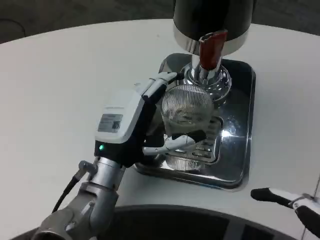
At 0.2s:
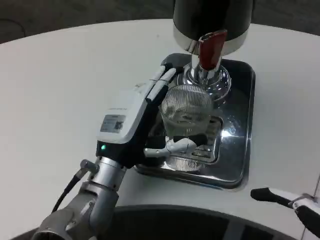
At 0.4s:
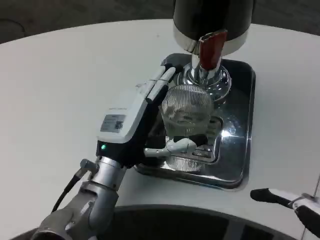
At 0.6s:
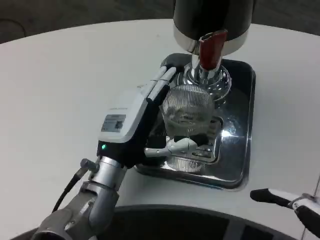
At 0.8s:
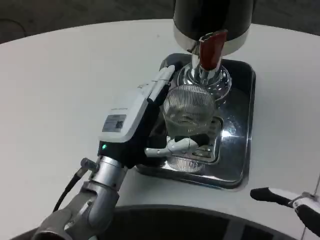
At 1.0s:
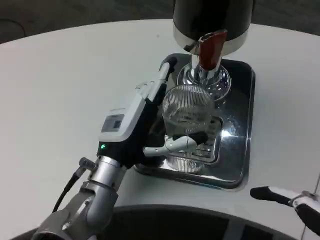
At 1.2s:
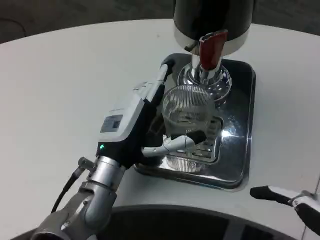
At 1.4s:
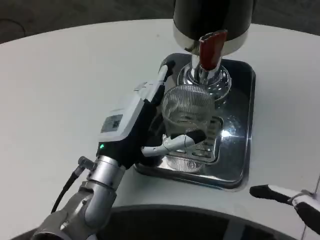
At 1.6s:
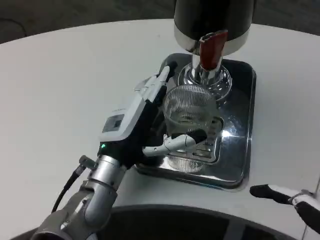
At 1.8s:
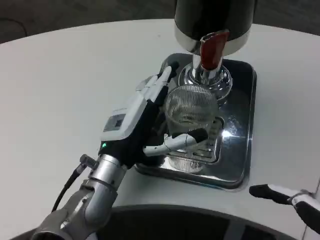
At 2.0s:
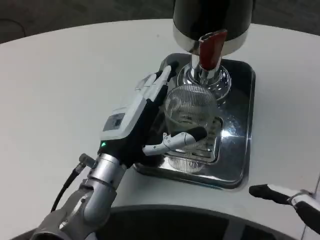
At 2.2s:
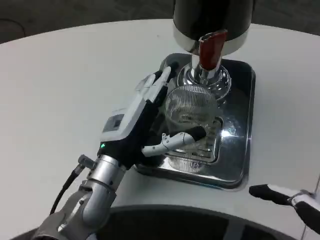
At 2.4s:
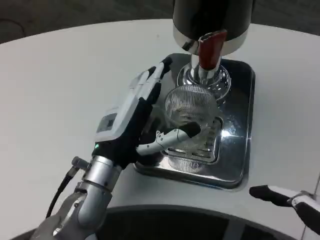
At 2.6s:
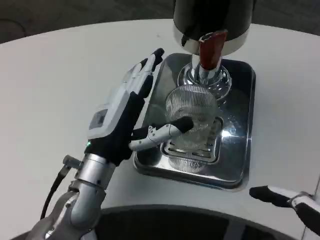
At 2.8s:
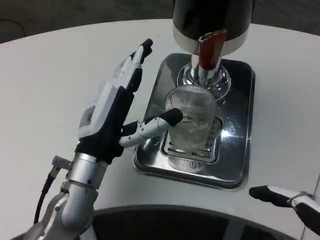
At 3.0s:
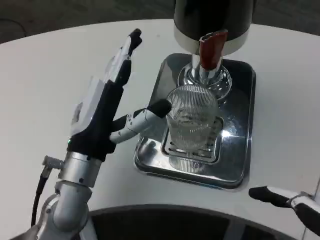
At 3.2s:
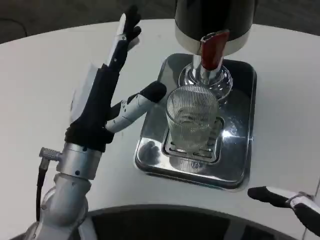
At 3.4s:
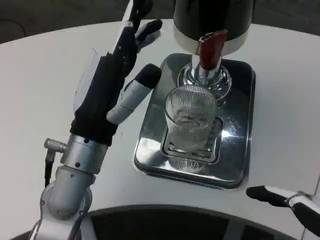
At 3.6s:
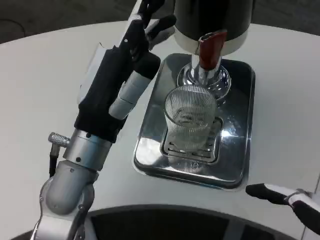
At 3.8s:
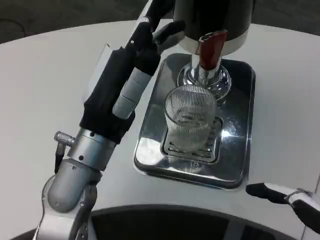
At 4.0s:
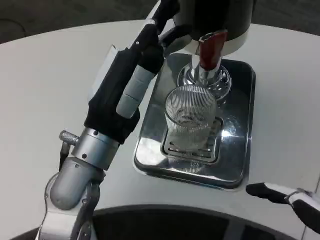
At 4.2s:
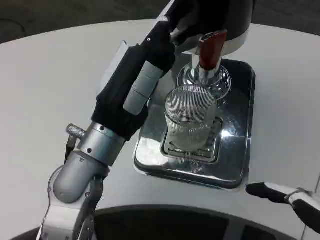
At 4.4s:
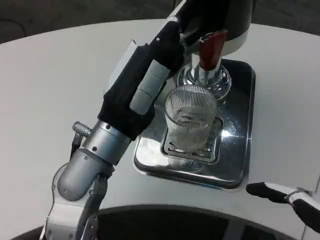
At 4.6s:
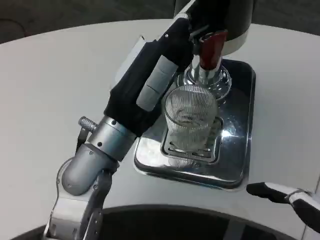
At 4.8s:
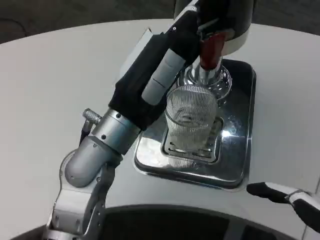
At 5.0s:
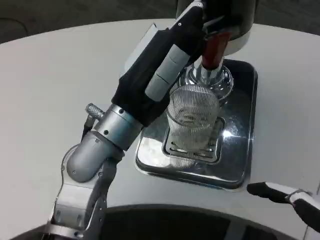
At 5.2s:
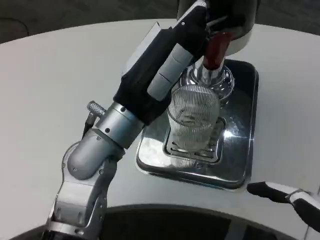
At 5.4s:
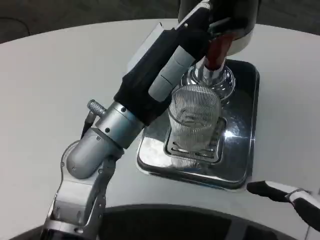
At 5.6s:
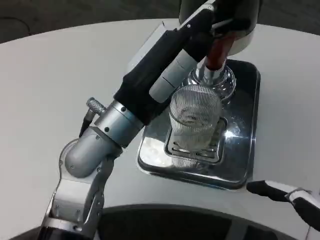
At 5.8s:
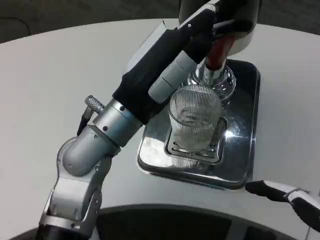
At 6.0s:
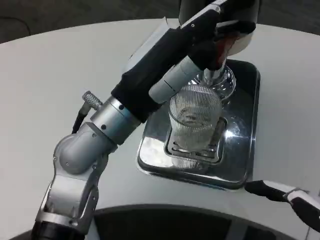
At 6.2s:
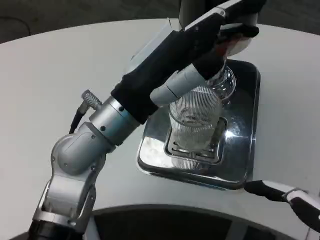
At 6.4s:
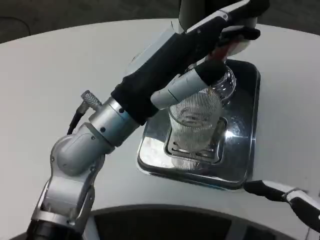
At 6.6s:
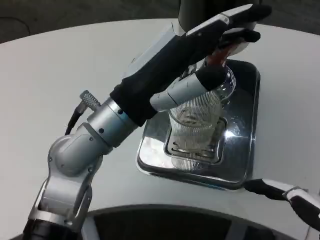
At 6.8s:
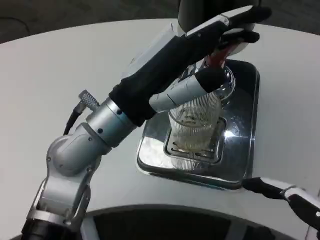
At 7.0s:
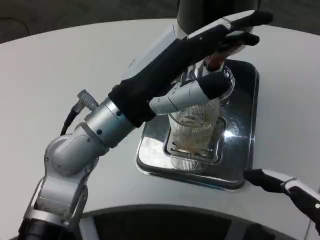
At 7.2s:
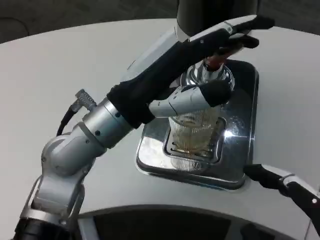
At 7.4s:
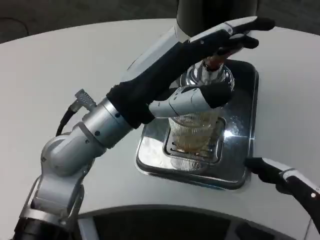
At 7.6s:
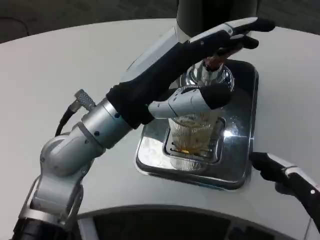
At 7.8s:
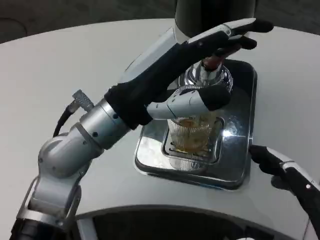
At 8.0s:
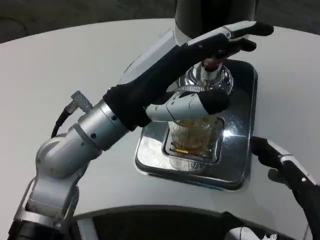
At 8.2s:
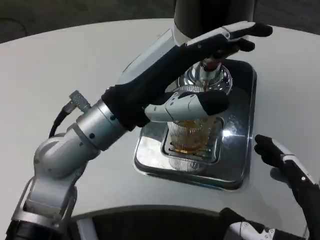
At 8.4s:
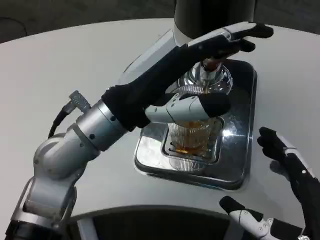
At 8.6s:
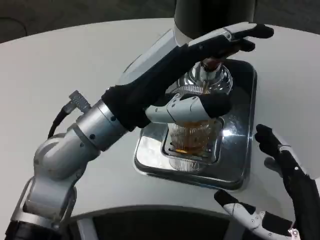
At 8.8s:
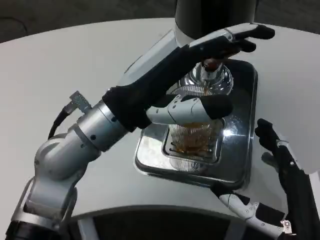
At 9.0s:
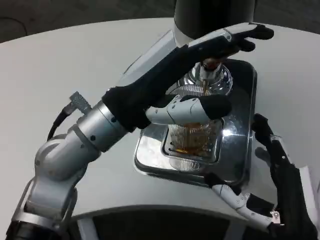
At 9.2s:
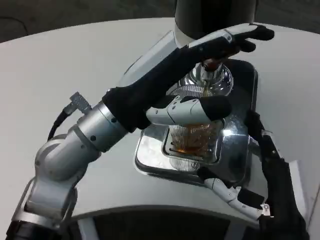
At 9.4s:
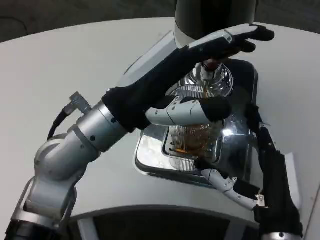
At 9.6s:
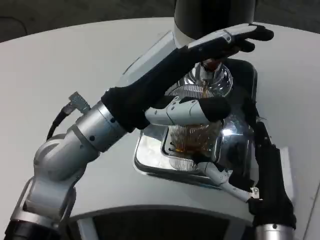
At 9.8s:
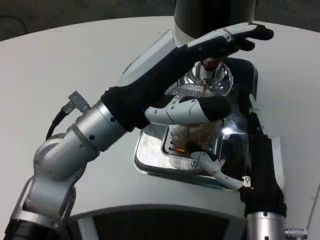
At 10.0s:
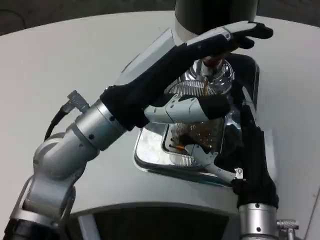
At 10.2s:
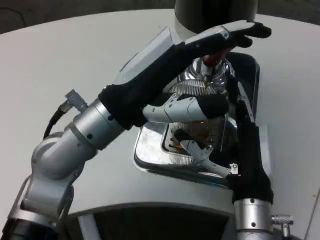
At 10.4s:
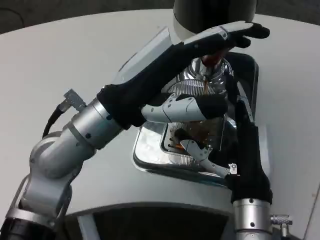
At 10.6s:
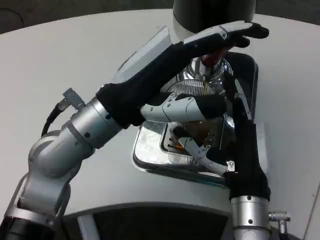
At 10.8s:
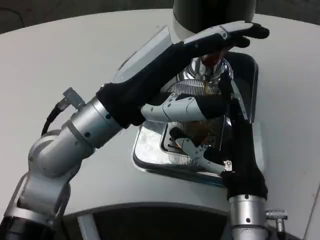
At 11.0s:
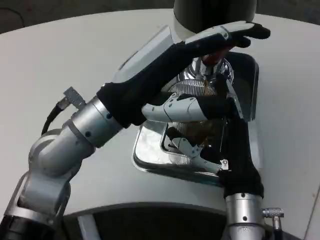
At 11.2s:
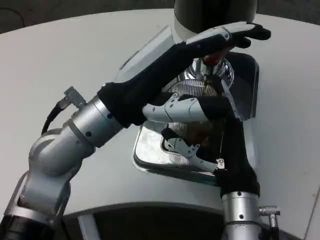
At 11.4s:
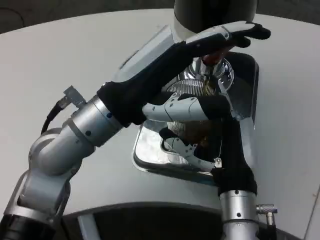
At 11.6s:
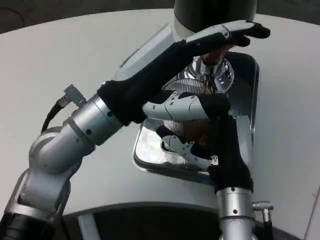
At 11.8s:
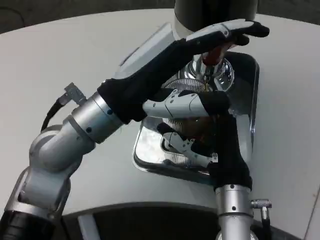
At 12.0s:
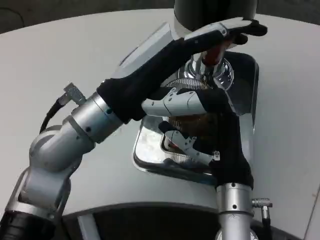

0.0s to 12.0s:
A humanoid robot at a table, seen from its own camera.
Task of the whole recording: Grasp the cup under the faucet to collect the drink, then remove the cup.
0.0s to 1.6s: The hands make only small movements.
1.6s to 3.0s: There are only small adjustments of the hands.
3.0s to 4.4s: The left hand shifts about 5 cm upward.
7.6s to 9.0s: The right hand heads forward and downward, covering some 10 cm.
9.0s to 10.4s: The right hand travels forward by some 5 cm.

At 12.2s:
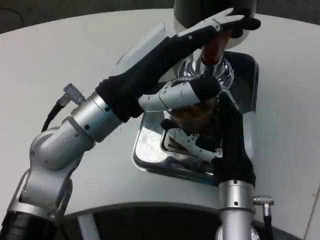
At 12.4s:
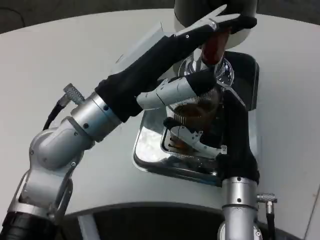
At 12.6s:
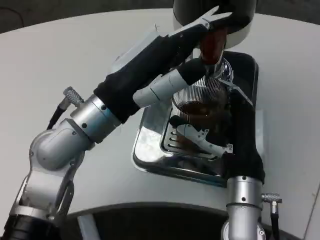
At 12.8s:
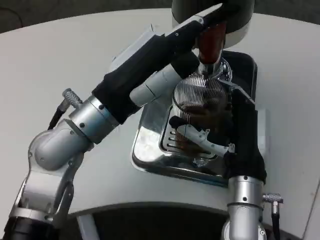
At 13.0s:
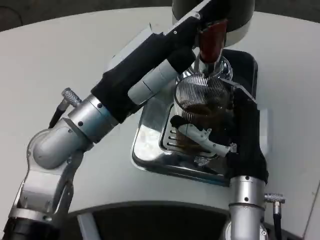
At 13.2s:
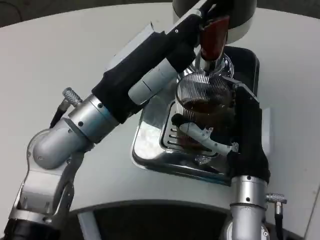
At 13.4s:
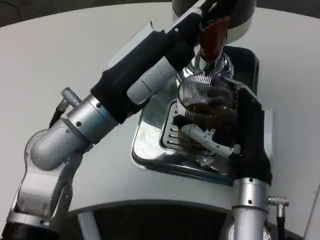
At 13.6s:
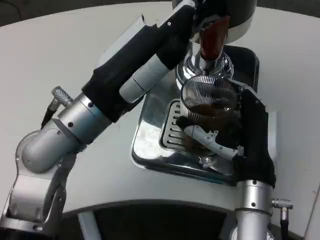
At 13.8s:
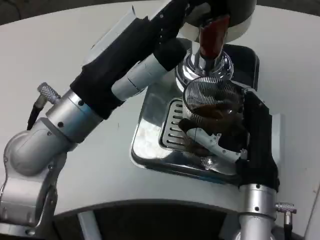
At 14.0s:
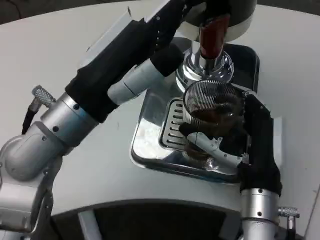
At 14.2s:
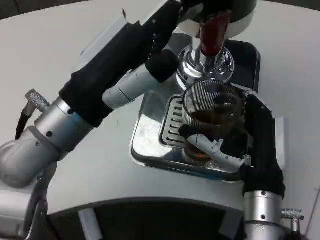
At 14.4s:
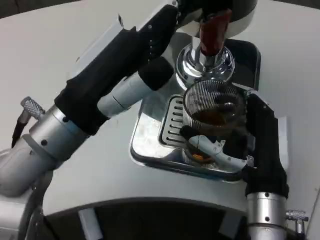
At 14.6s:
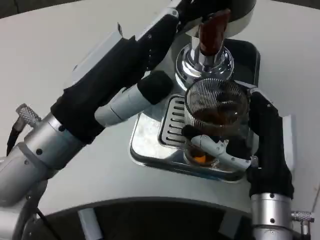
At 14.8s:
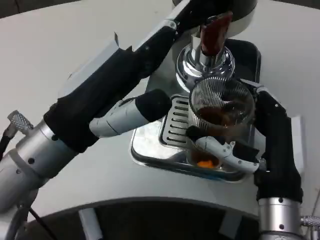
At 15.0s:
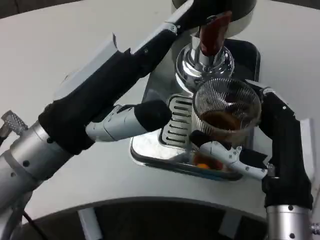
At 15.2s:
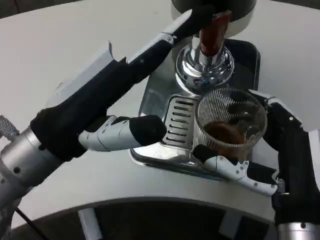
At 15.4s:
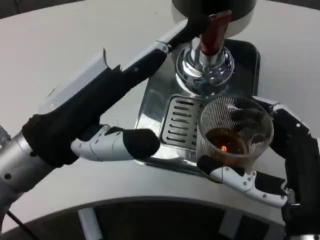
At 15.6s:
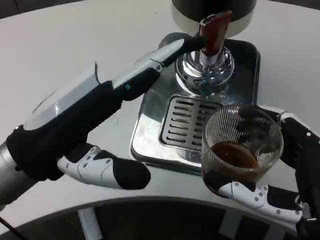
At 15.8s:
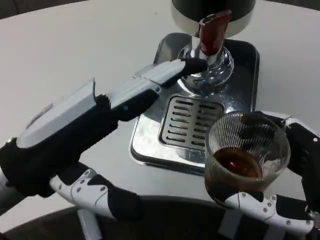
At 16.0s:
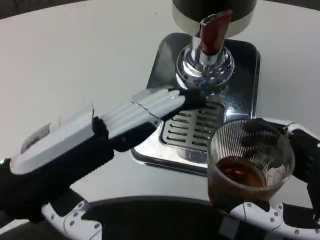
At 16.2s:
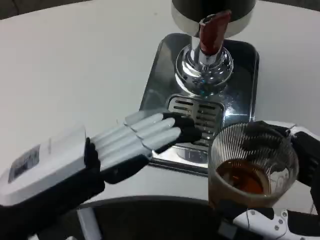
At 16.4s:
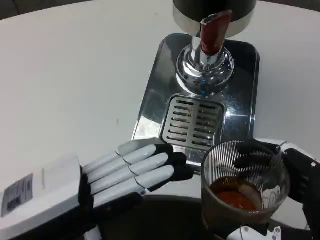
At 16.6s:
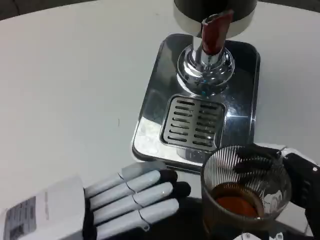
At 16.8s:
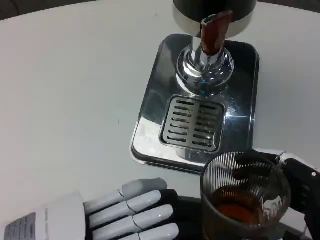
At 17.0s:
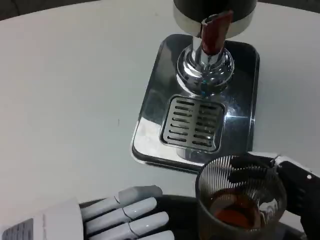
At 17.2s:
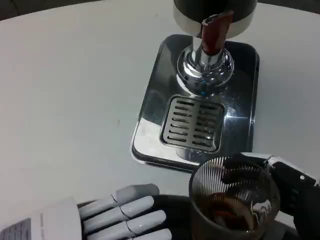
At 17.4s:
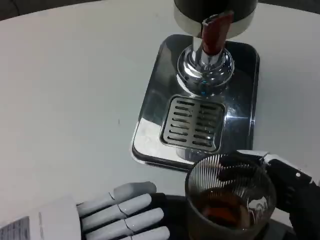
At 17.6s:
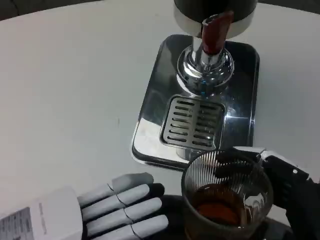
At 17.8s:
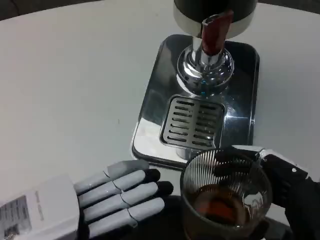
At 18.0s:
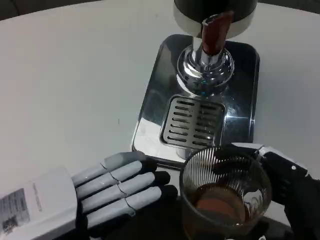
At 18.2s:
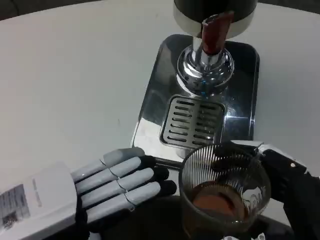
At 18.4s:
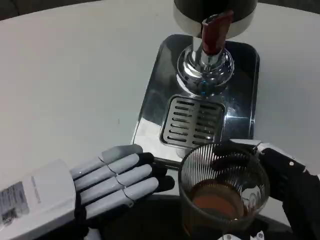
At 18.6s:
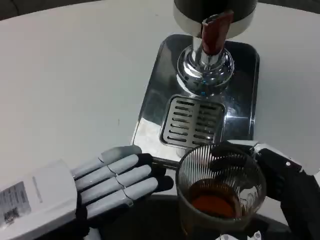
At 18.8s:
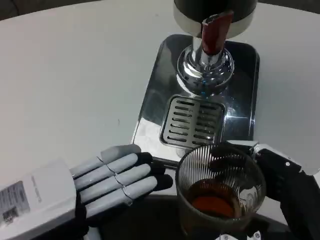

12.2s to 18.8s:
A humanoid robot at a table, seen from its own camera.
Task of the whole recording: Grasp the cup under the faucet to collect the drink, then remove the cup.
13.8s to 15.4s: The right hand moves backward, approximately 10 cm. The left hand heads backward, covering some 5 cm.
15.4s to 17.2s: The right hand is displaced backward by roughly 10 cm, while the left hand is displaced backward, to the left and downward by some 10 cm.
17.2s to 18.8s: The hands make only small movements.

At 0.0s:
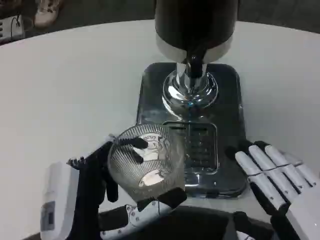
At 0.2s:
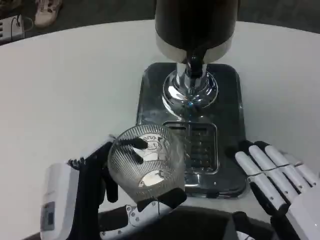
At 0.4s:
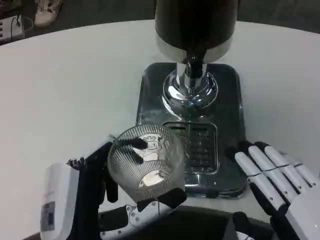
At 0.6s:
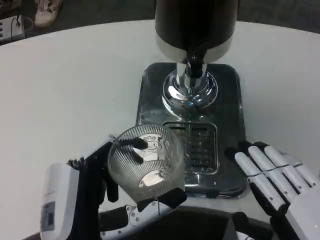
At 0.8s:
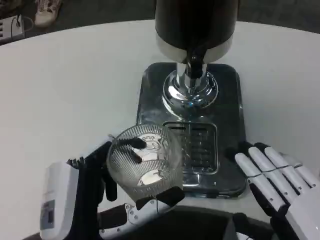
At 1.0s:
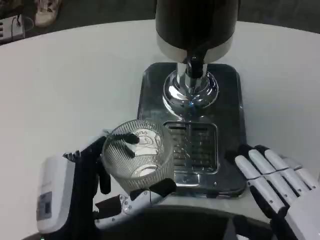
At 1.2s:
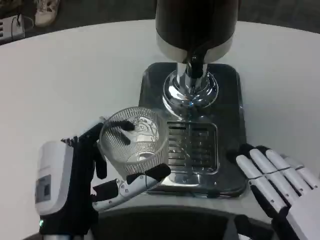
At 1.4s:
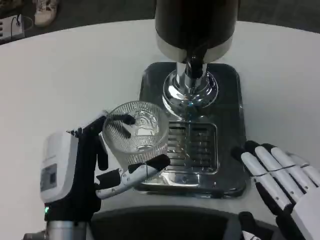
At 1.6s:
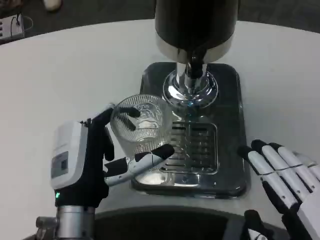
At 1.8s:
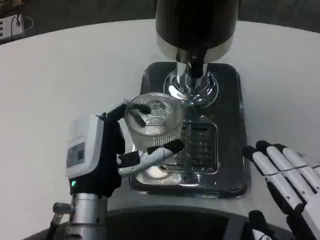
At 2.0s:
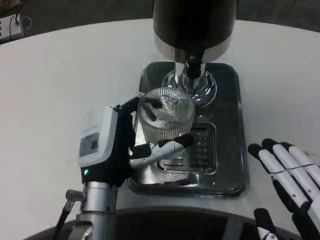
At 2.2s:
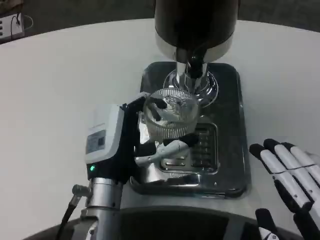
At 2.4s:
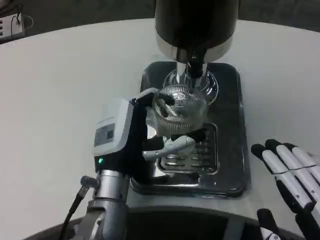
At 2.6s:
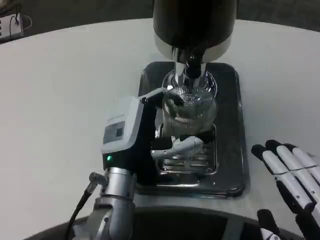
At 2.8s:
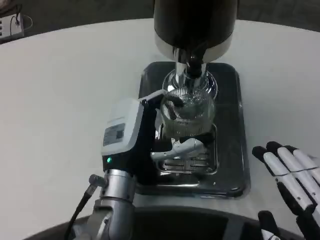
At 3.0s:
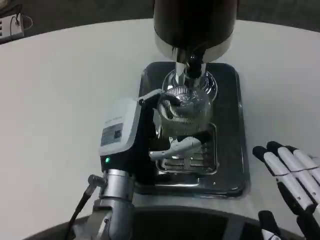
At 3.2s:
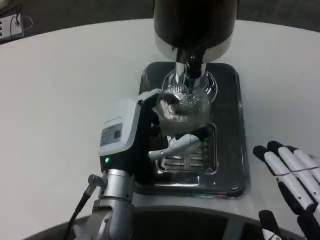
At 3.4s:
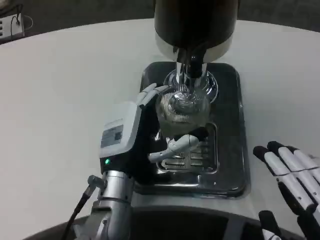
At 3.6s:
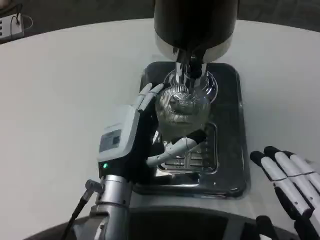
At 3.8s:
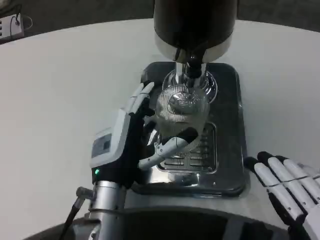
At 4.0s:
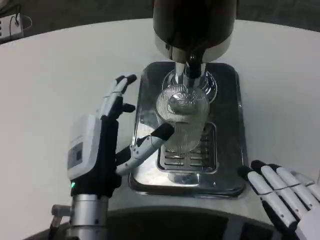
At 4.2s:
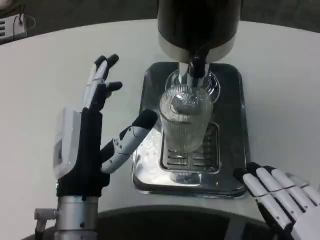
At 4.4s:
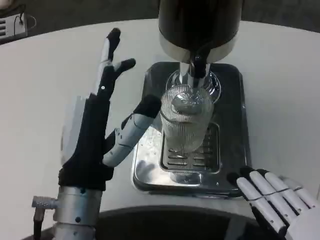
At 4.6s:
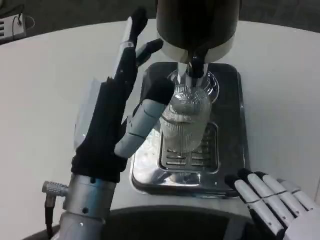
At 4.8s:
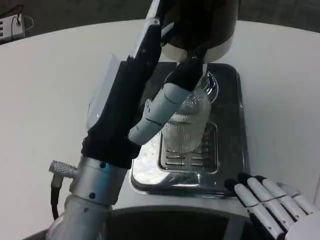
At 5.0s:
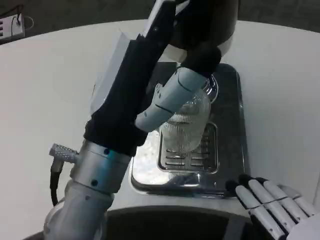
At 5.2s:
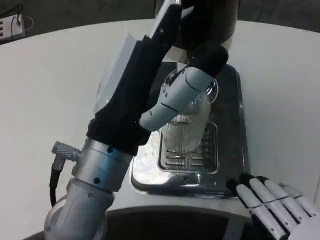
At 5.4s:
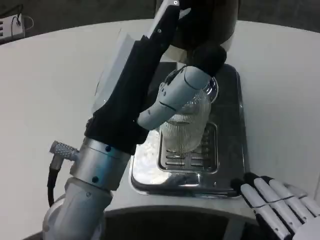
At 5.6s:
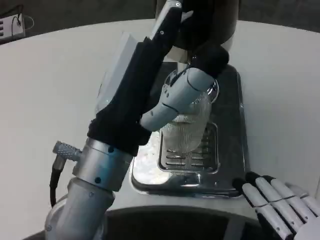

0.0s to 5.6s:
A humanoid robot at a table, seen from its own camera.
Task of the whole recording: Grasp the cup under the faucet to collect the drink, then remove the cup.
0.0s to 1.4s: The left hand travels forward by some 5 cm.
1.4s to 2.8s: The left hand travels forward by about 10 cm.
2.8s to 4.2s: The left hand goes about 5 cm backward.
4.2s to 5.6s: The left hand is displaced upward by approximately 10 cm.
